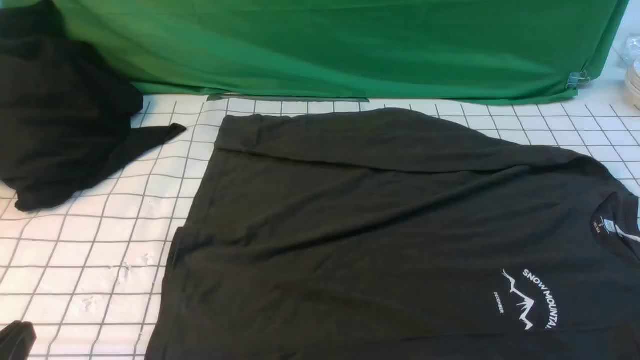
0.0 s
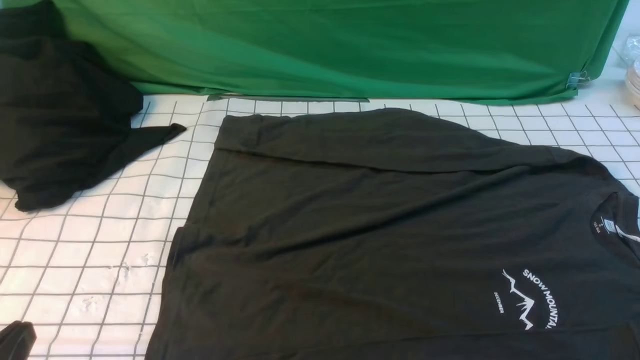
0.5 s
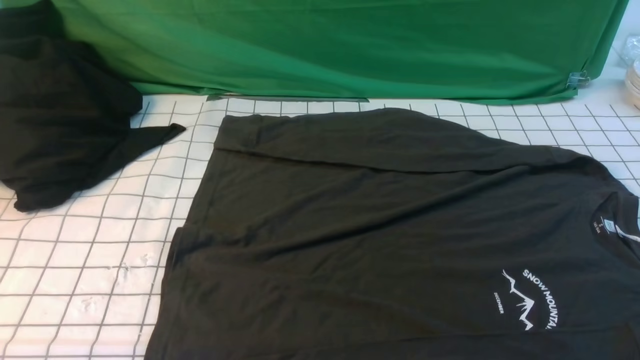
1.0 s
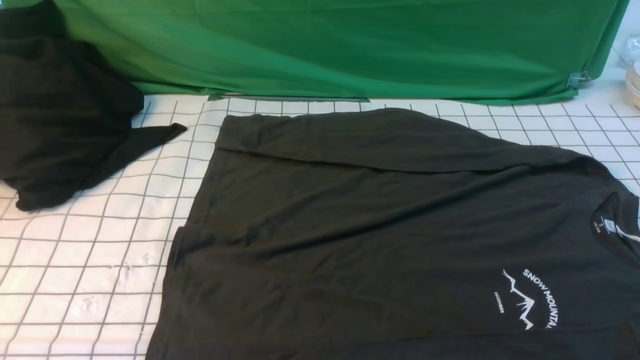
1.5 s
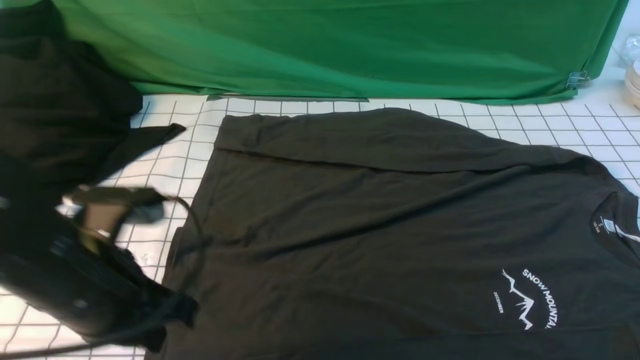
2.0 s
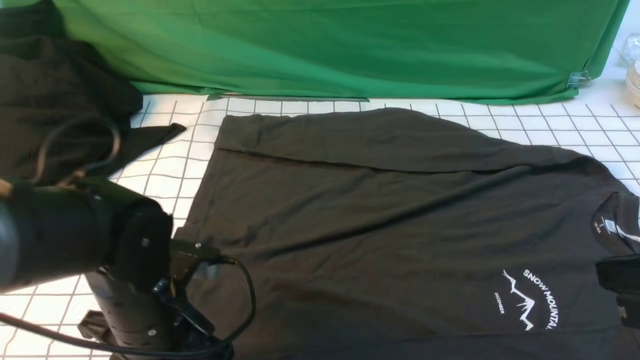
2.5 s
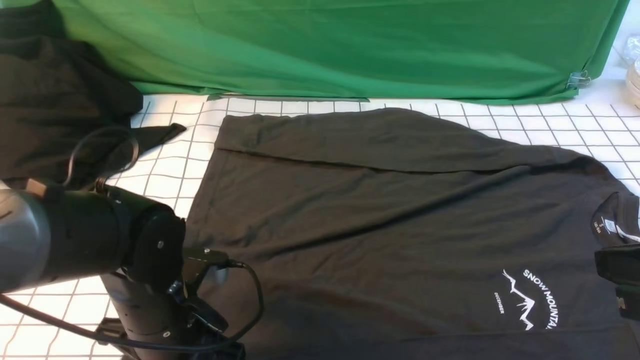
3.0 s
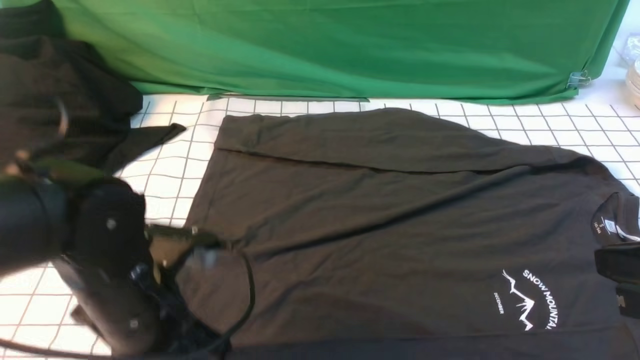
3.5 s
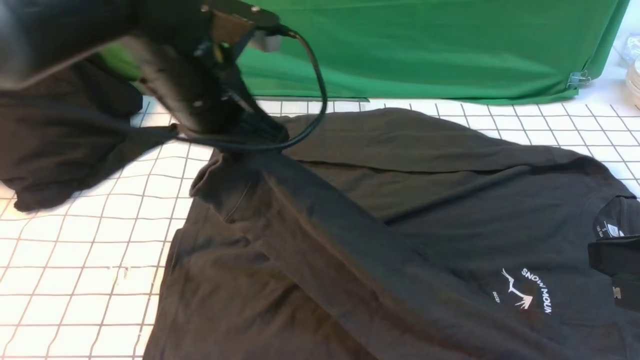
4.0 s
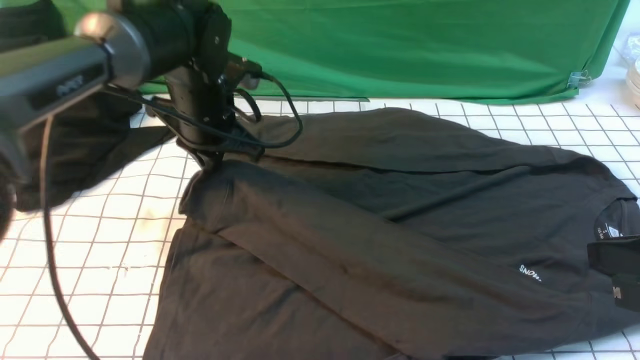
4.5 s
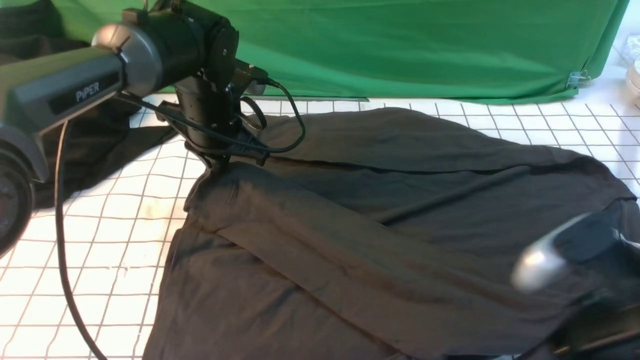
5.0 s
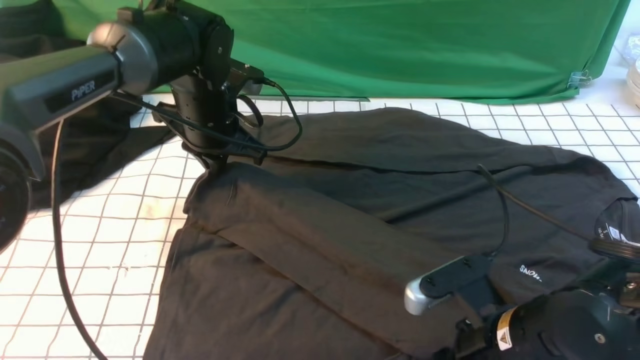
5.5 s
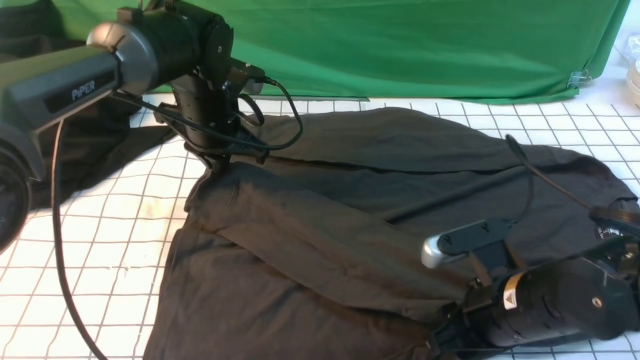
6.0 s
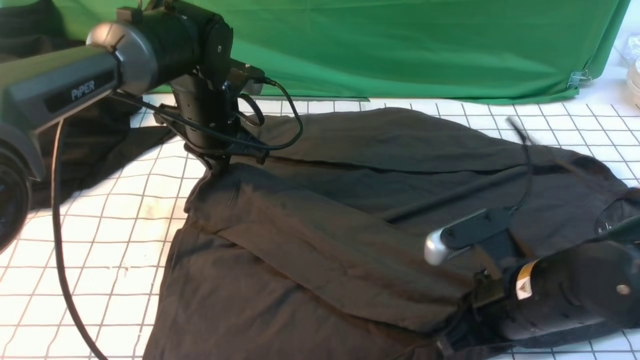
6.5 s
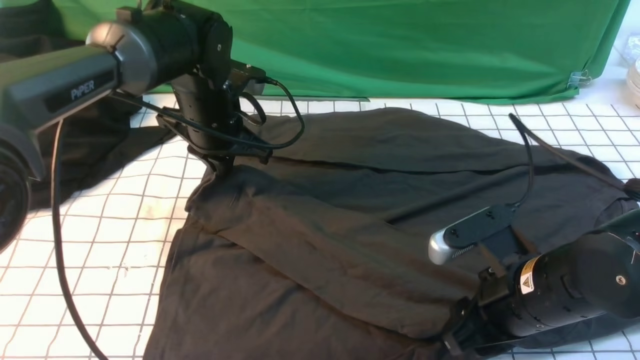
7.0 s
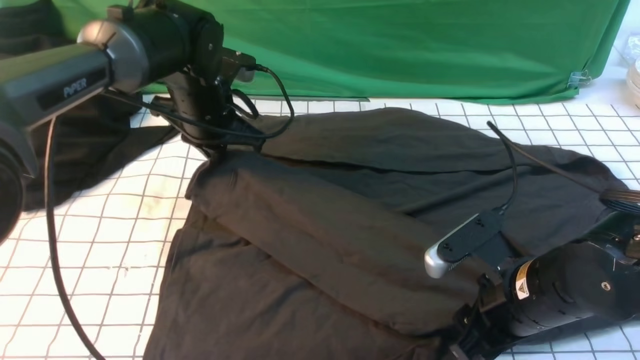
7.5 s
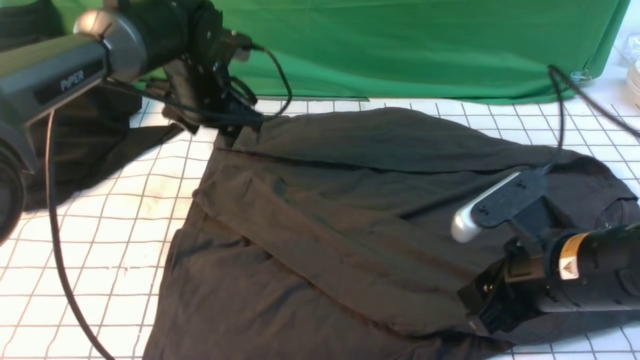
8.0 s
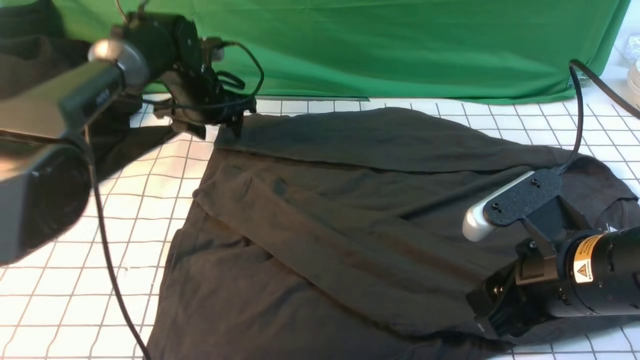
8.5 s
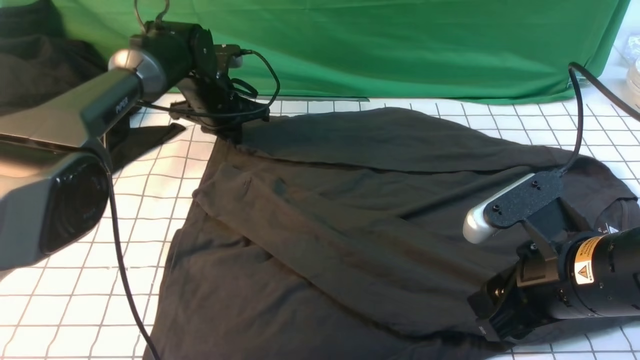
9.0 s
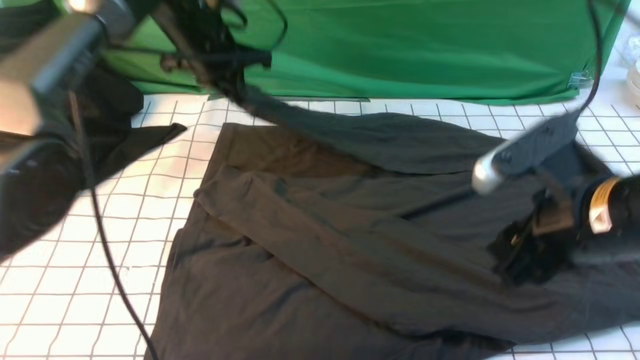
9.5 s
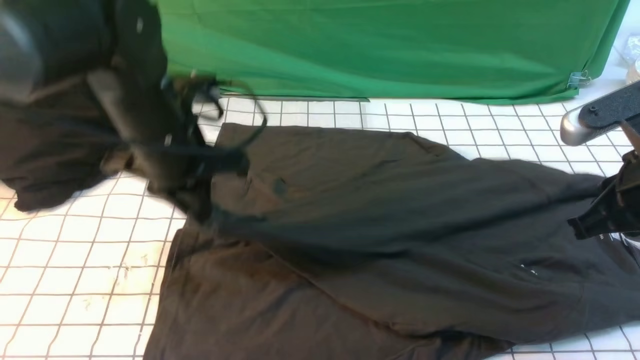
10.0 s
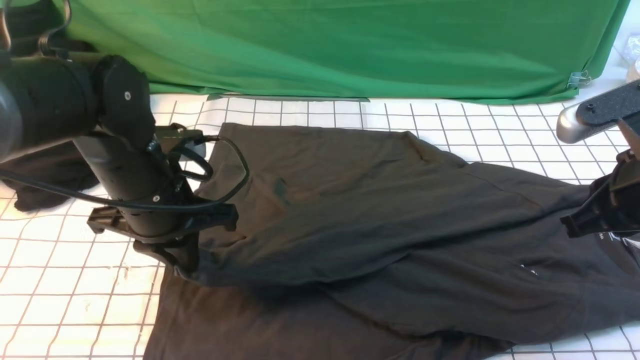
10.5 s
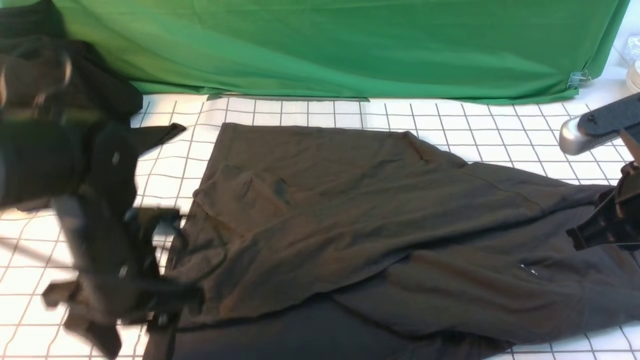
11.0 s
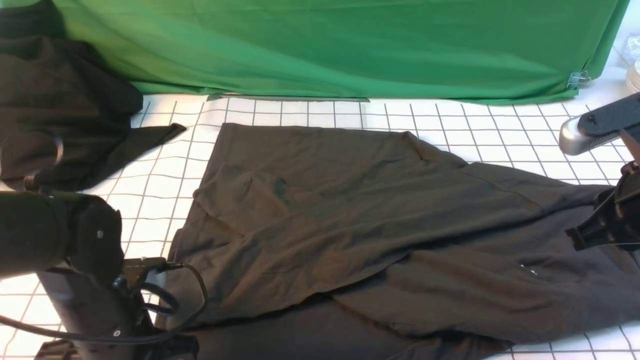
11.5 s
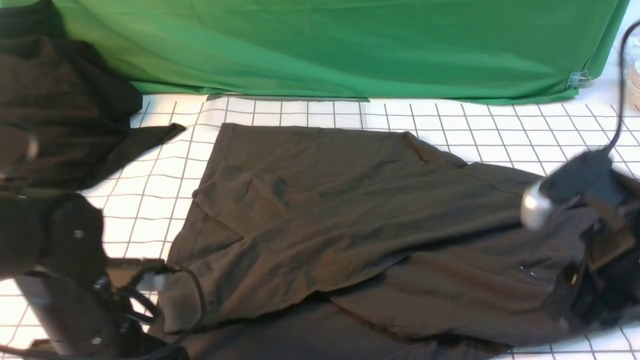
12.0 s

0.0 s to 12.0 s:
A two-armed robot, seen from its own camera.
Step, 0.0 to 3.0 s: use the left arm to clamp the cuff closest to it.
Step, 3.5 to 8.0 s: use the left arm to drag and place the cuff at the centered position on the left edge of the fabric.
Step, 8.5 to 9.0 s: use the left arm to clamp the cuff farthest from it.
Step, 9.5 to 10.5 s: use the left arm to drag and drop the cuff onto the cuff closest to the left arm.
0.0 to 2.0 s: The left gripper is displaced forward and to the right by some 15 cm, and moves roughly 15 cm upward and comes back.
2.0 to 4.0 s: The left gripper travels forward, upward and to the right by approximately 15 cm, and opens, then closes once more. The right gripper goes roughly 5 cm forward.
4.0 to 6.0 s: The right gripper is displaced downward, to the left and forward by roughly 20 cm, and opens up. The left gripper travels forward and downward by about 15 cm.
6.0 to 8.0 s: The left gripper opens. The right gripper moves upward, roughly 5 cm, and closes and opens again.
8.0 to 10.0 s: The left gripper heads backward, covering about 10 cm, and closes its fingers. Meanwhile the right gripper goes about 10 cm to the right and upward, and closes.
10.0 to 12.0 s: The right gripper shifts by approximately 5 cm, and opens. Meanwhile the left gripper goes some 15 cm backward and downward, and opens, then closes once more.

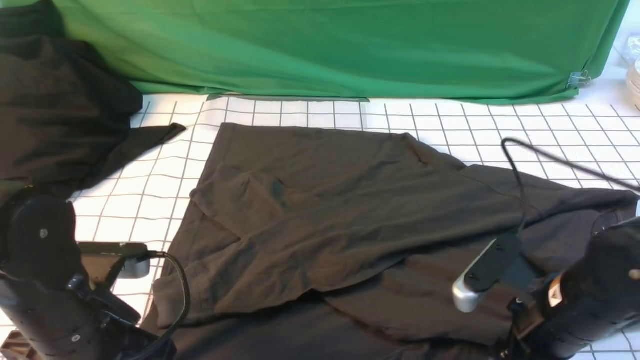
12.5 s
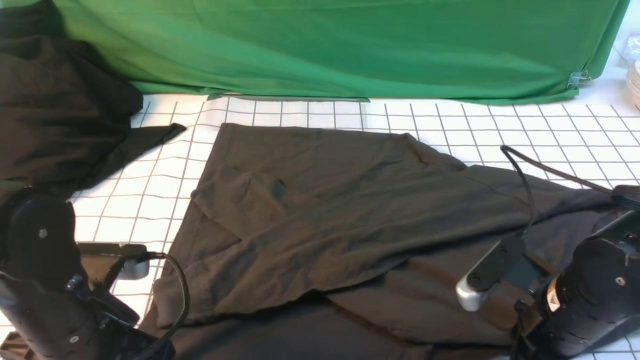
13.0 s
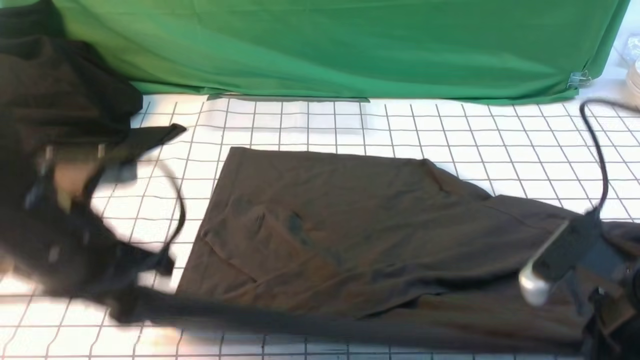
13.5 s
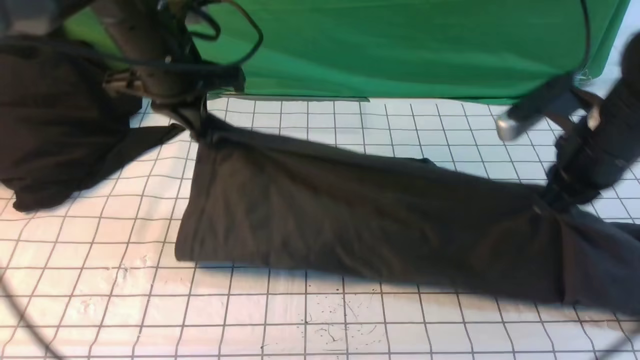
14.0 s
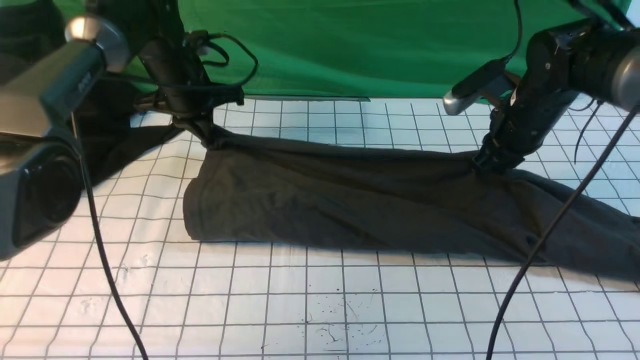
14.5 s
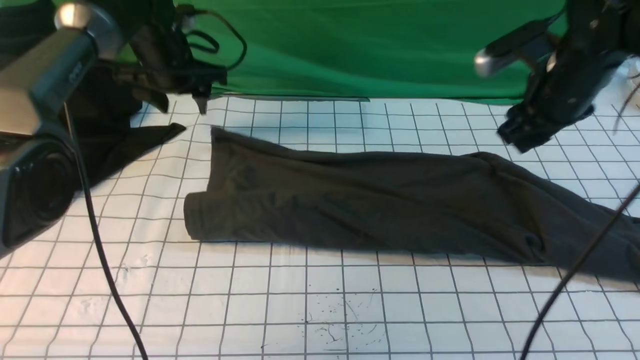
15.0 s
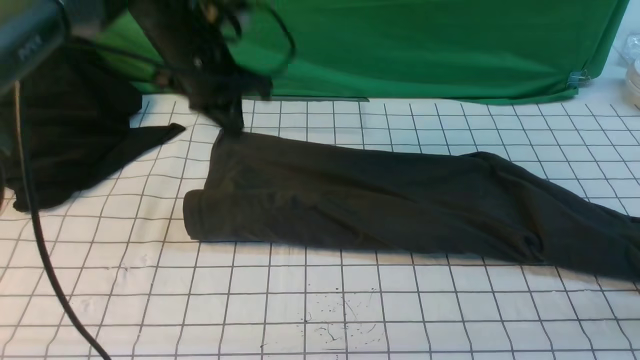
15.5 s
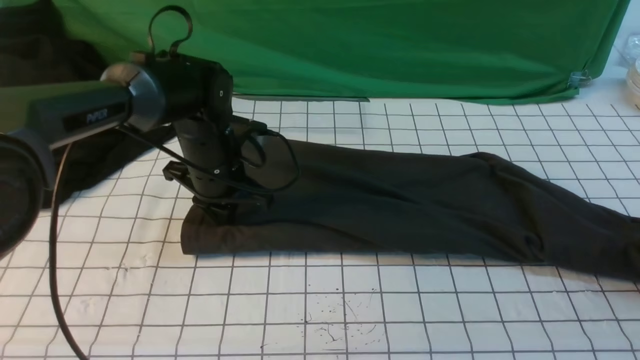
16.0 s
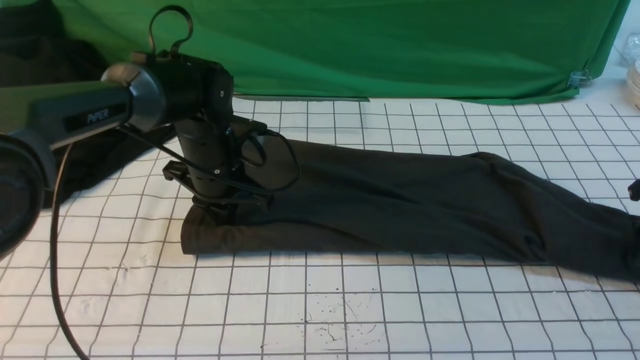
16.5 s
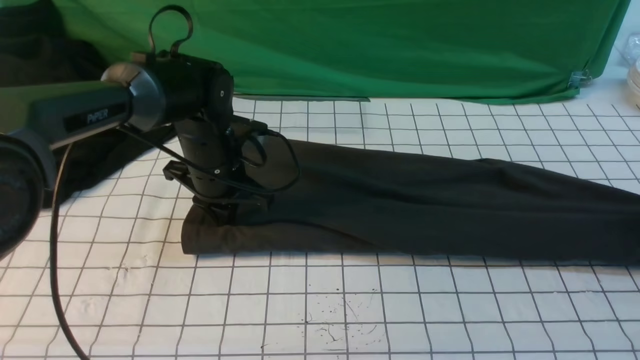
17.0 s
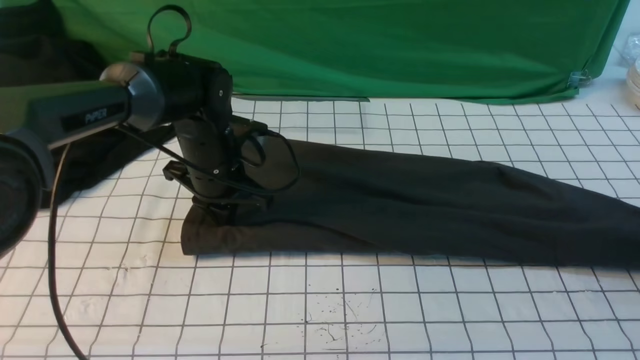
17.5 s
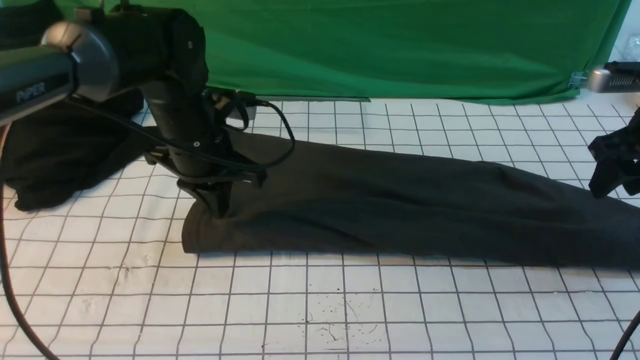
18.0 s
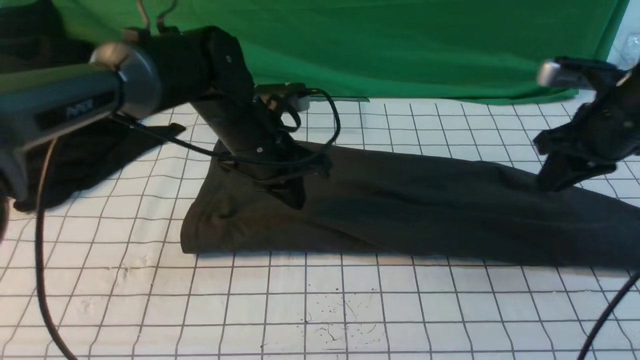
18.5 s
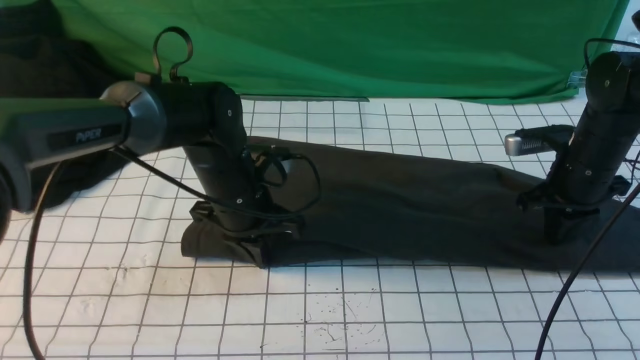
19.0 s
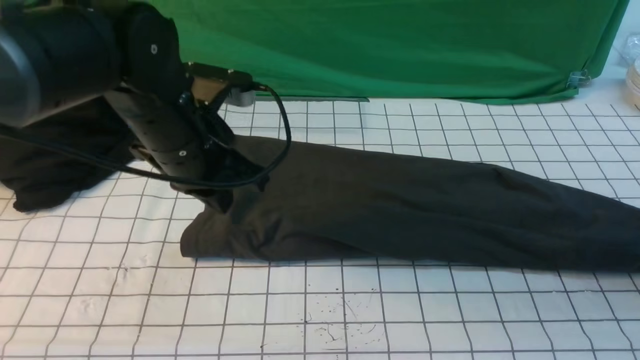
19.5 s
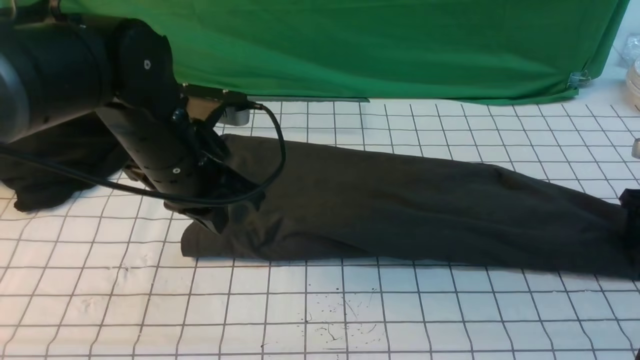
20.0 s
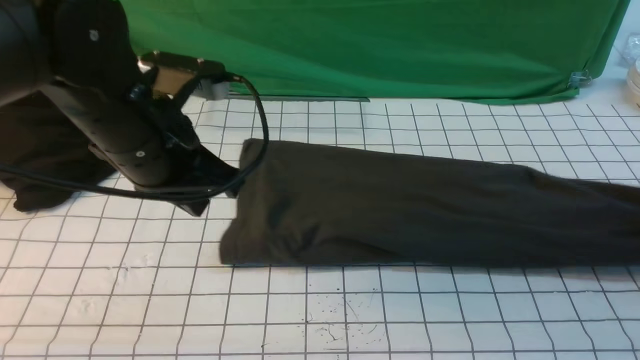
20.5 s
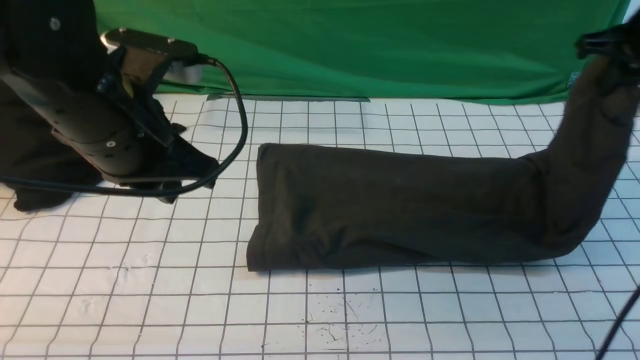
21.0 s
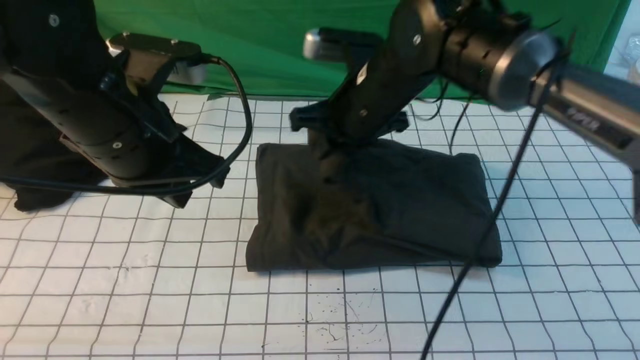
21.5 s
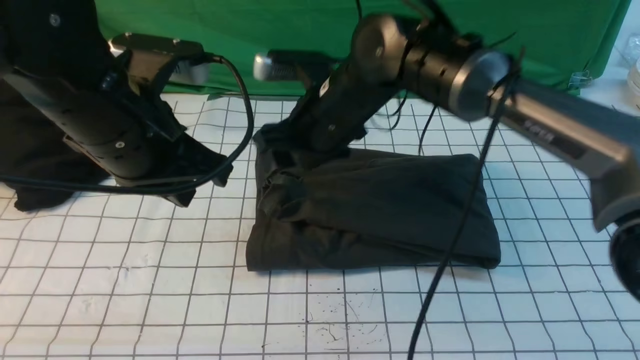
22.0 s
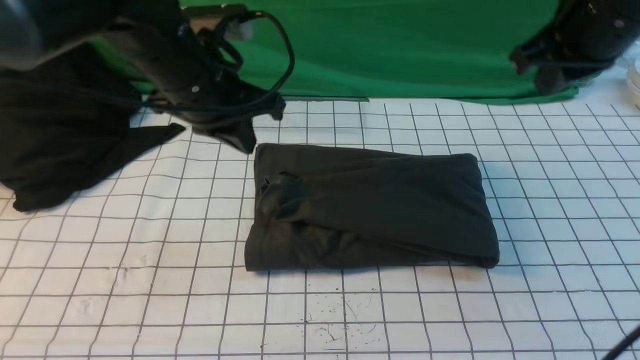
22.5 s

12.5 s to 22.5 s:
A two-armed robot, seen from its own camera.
Step, 13.5 to 15.0 s: use both arms to drag the lower edge of the fabric forward and fold it over the upper edge.
Step, 15.5 to 20.5 s: use the right arm to clamp the right edge of the fabric.
Step, 21.0 to 22.0 s: use the right arm to drag the right edge of the fabric to the left and folds it over the left edge.
12.5 to 14.5 s: Both grippers travel together forward, roughly 25 cm. The right gripper closes up.
14.5 to 16.5 s: The left gripper is displaced backward and to the right by roughly 10 cm, and opens, then closes again; the right gripper heads to the right, covering roughly 20 cm, and opens, then closes once more.
16.5 to 18.5 s: The right gripper shifts some 15 cm to the left, and opens, then closes again. Meanwhile the left gripper shifts by some 5 cm.
18.5 to 20.5 s: The right gripper moves to the right, approximately 15 cm, and opens, then closes again, while the left gripper shifts about 15 cm backward, upward and to the left.
20.5 to 22.5 s: The right gripper travels to the left and upward by roughly 30 cm, and opens, then closes once more, while the left gripper moves forward, about 10 cm.
